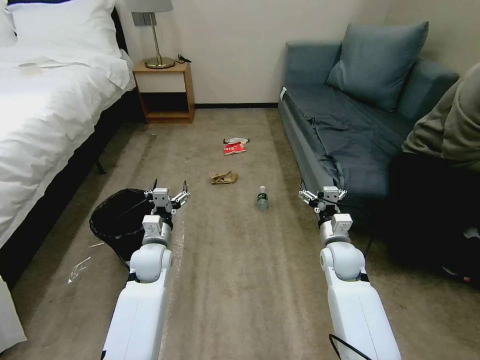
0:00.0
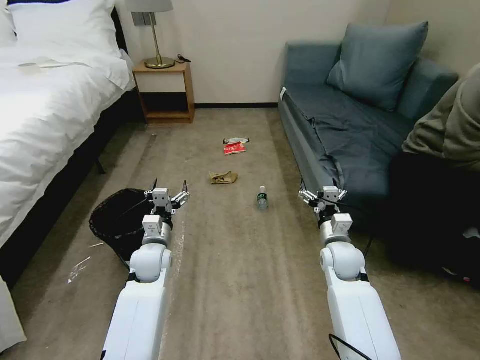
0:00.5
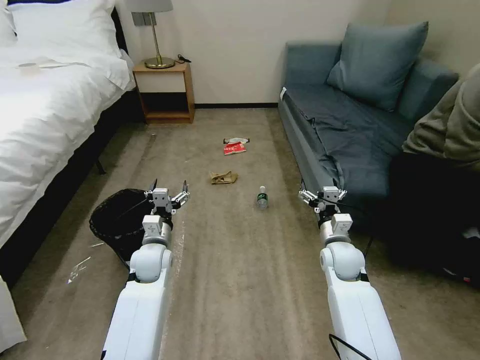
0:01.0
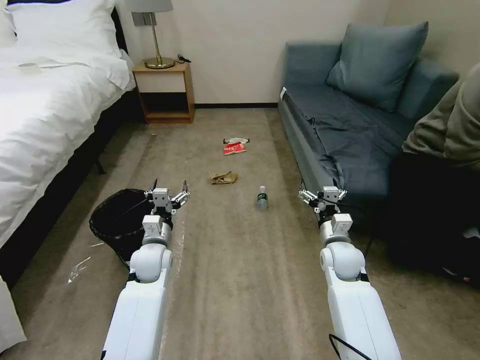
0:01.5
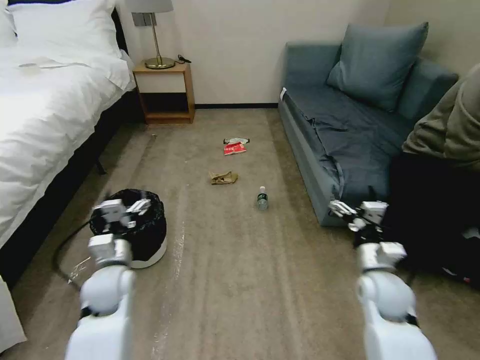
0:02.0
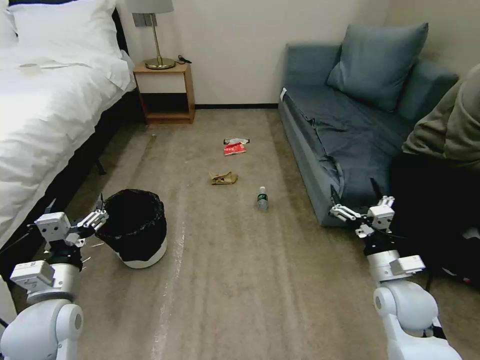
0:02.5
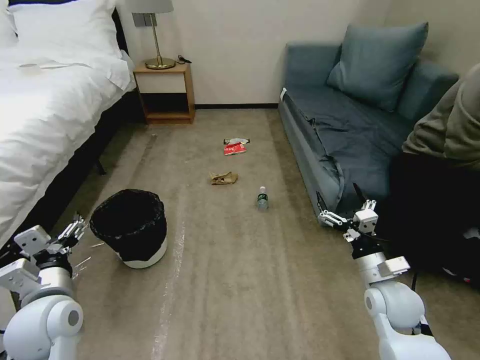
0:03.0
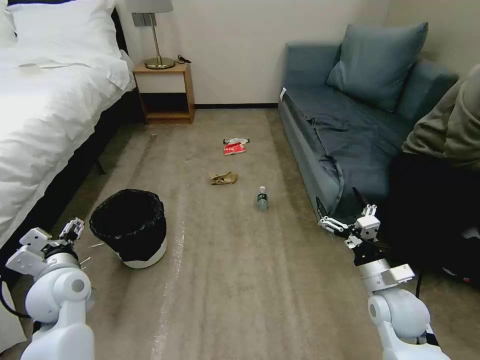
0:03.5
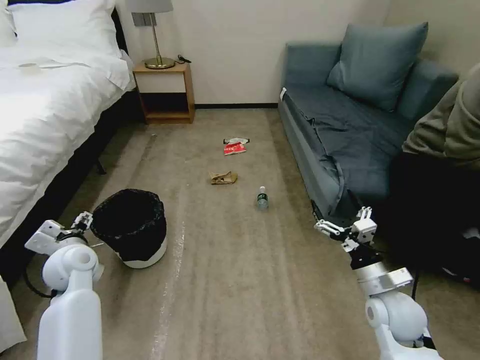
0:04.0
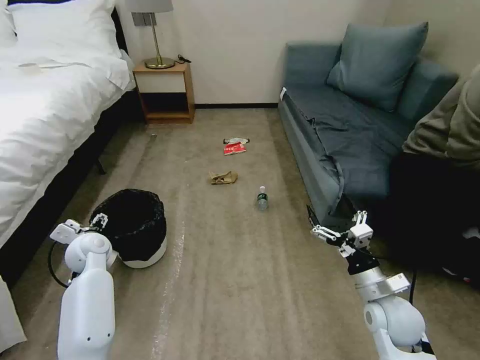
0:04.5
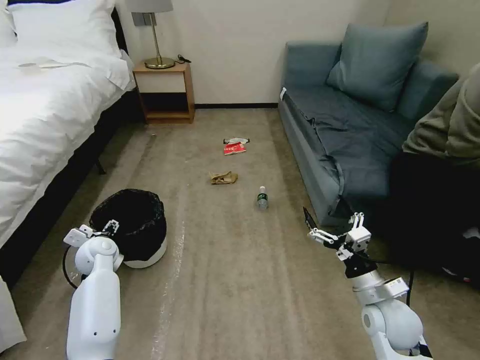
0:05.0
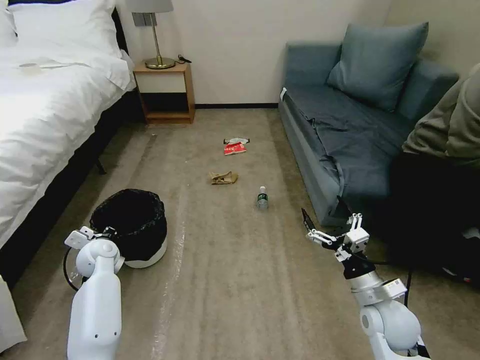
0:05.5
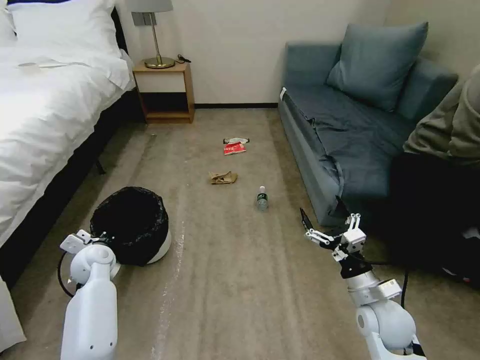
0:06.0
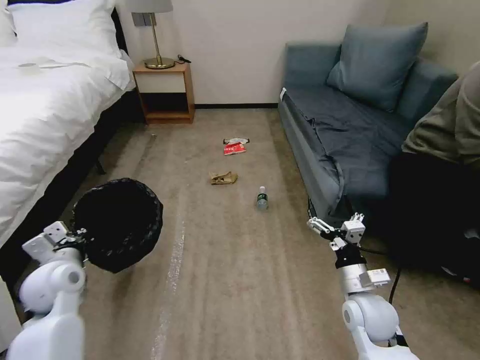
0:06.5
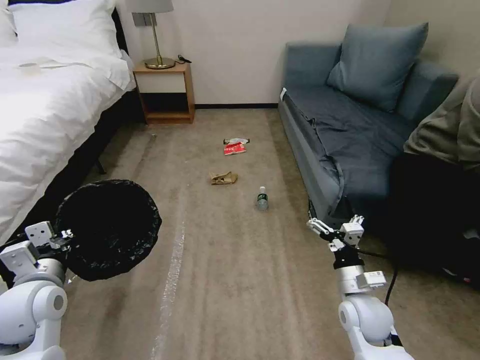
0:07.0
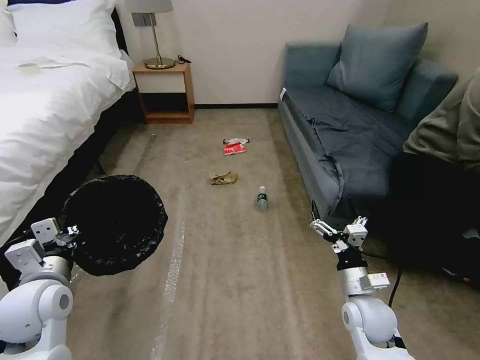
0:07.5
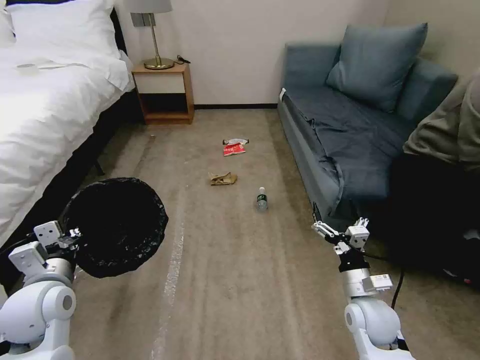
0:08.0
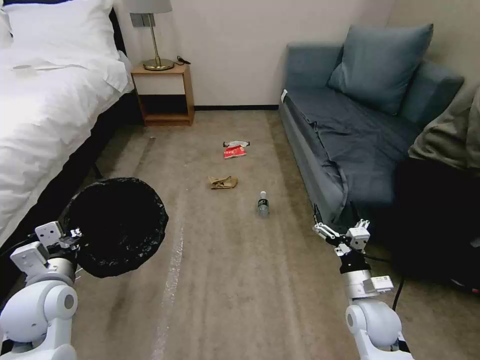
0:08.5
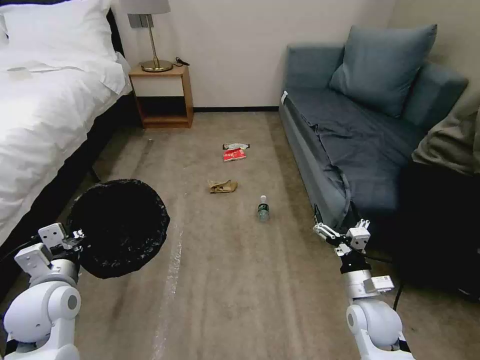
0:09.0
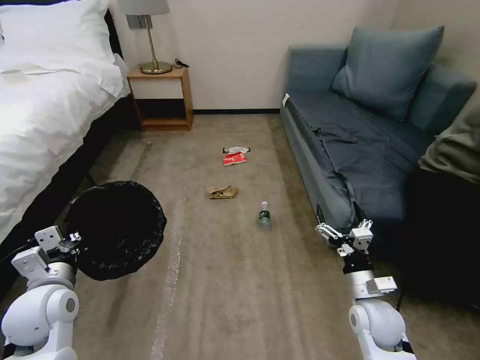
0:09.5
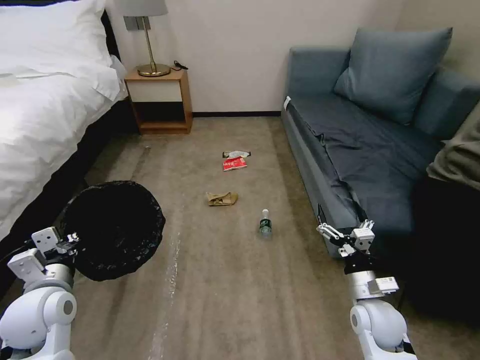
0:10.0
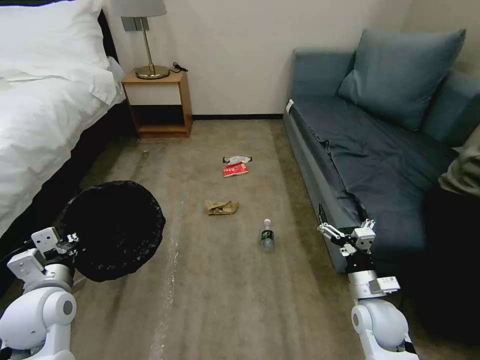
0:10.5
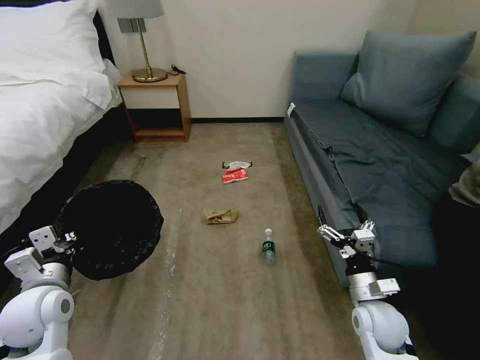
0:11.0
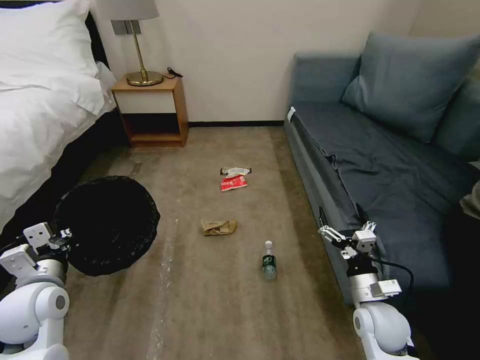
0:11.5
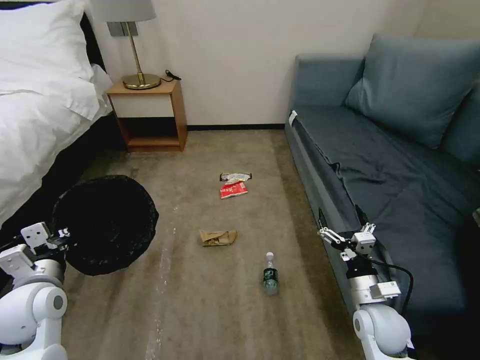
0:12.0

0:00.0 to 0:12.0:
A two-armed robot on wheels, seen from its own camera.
Task of the whole recording: Pick up the trash bin, then pick up the garbage on the floor and place it into the trash bin.
0:02.0 to 0:04.0: The left gripper is displaced to the left by some 10 cm, and reaches about 10 cm backward, then returns.
0:04.0 to 0:06.0: The left gripper heads downward, covering some 5 cm, and closes its fingers.
0:06.0 to 0:08.0: The left gripper is displaced backward and upward by some 20 cm.

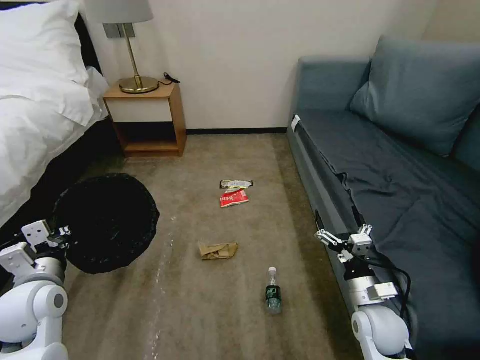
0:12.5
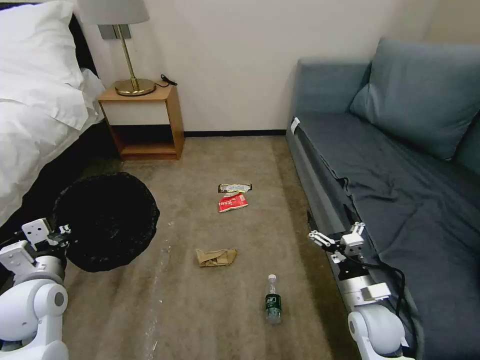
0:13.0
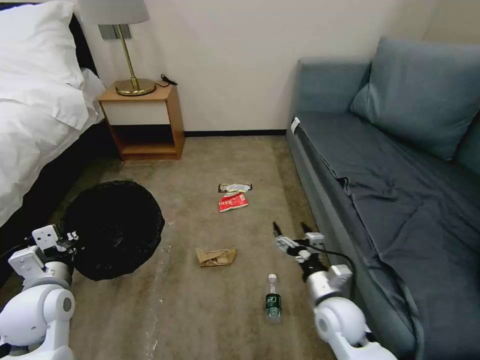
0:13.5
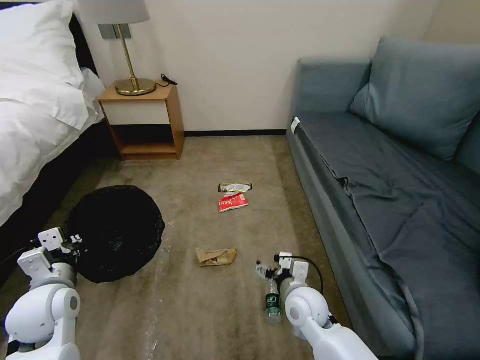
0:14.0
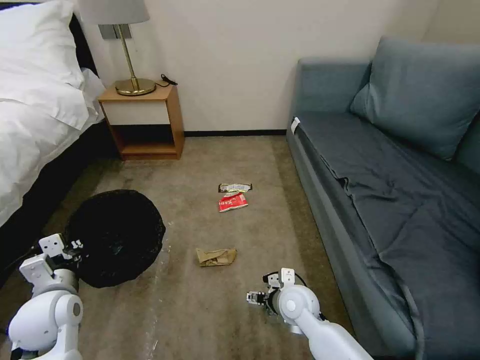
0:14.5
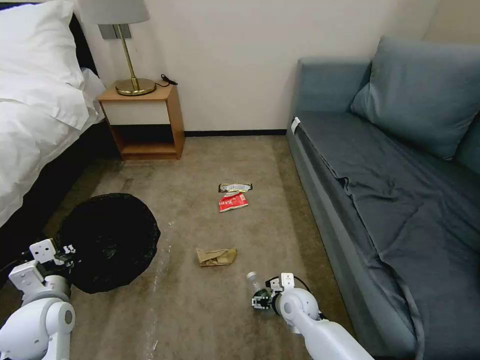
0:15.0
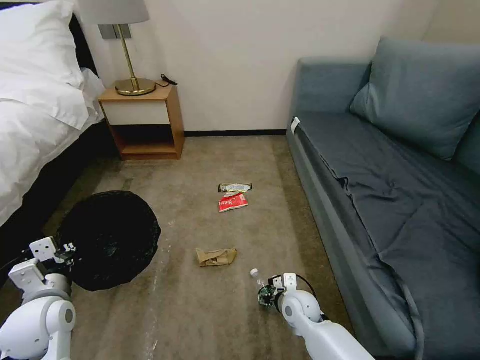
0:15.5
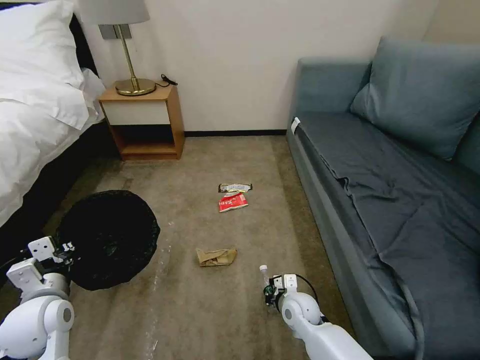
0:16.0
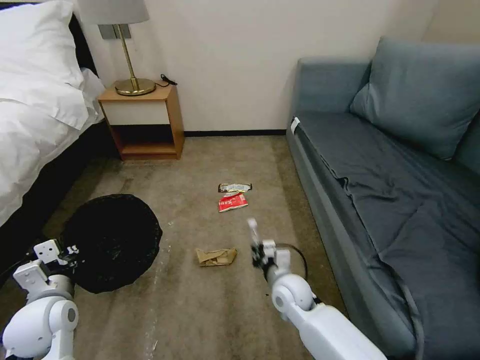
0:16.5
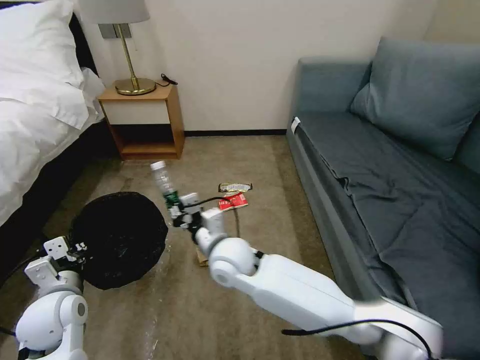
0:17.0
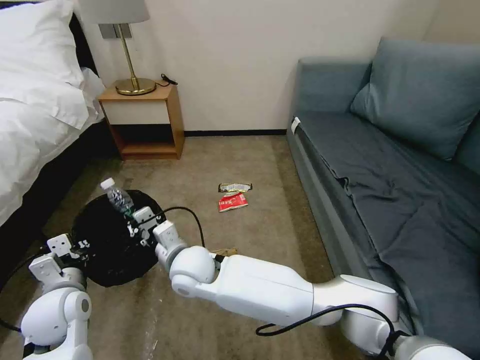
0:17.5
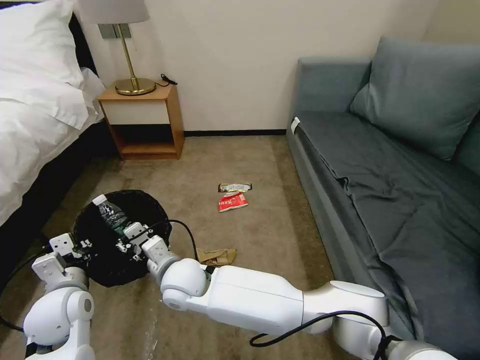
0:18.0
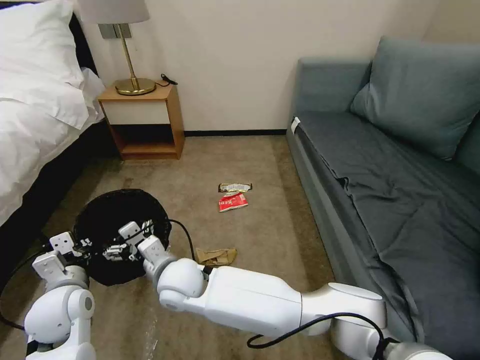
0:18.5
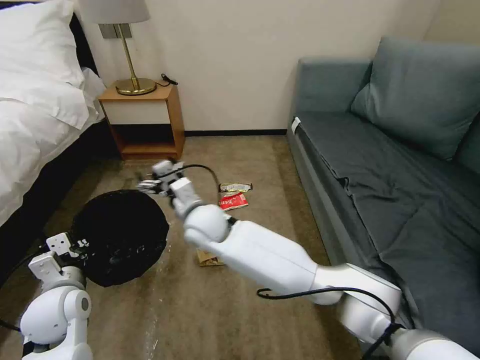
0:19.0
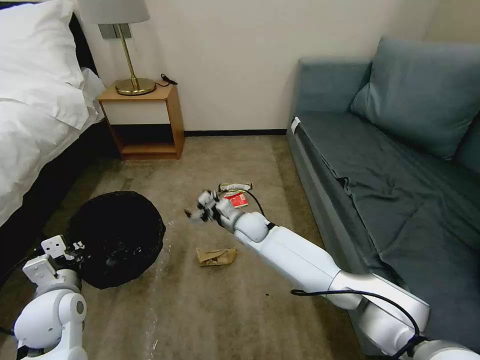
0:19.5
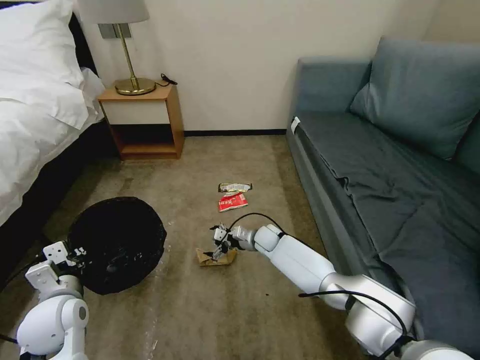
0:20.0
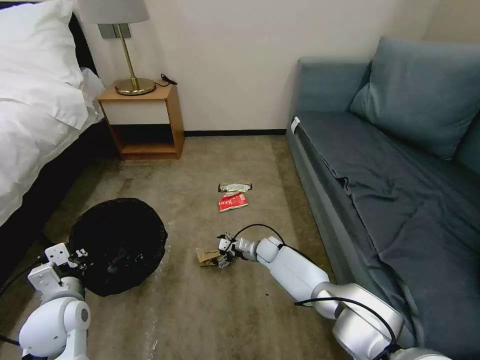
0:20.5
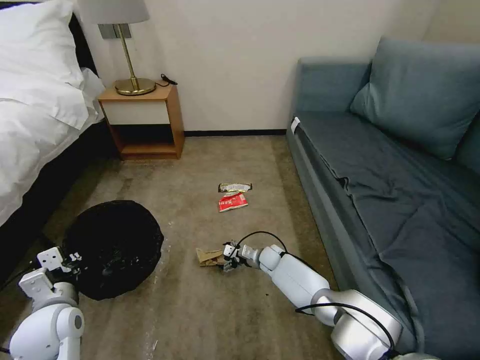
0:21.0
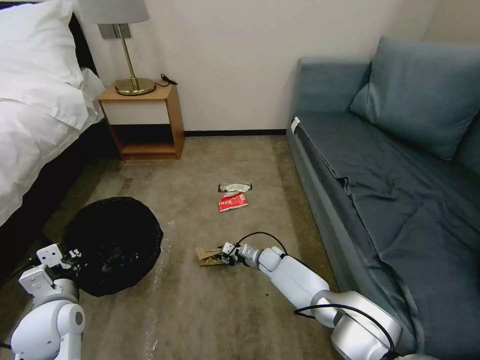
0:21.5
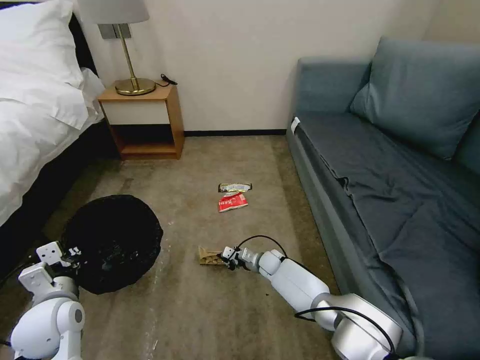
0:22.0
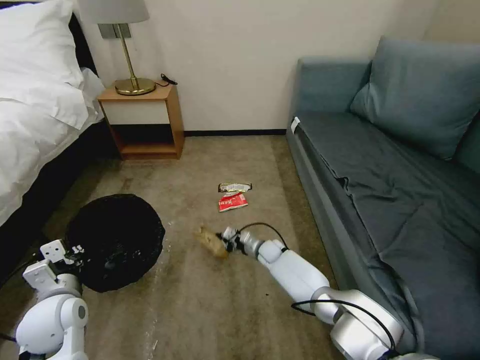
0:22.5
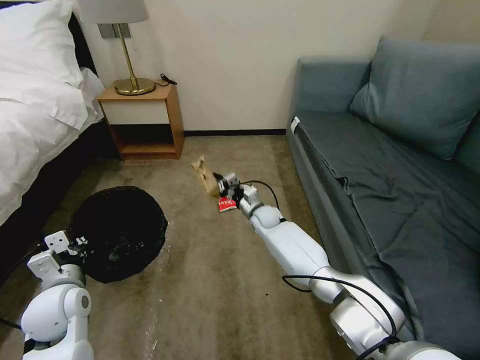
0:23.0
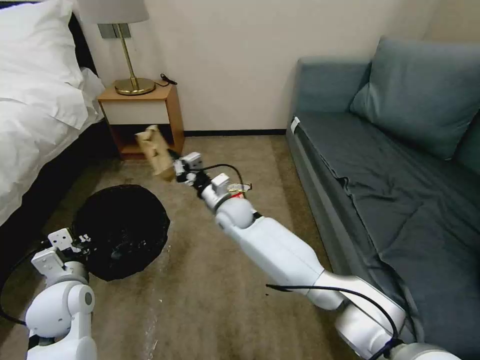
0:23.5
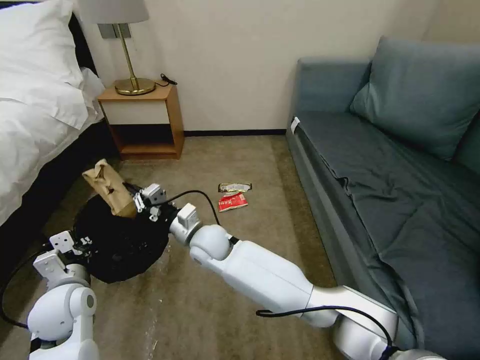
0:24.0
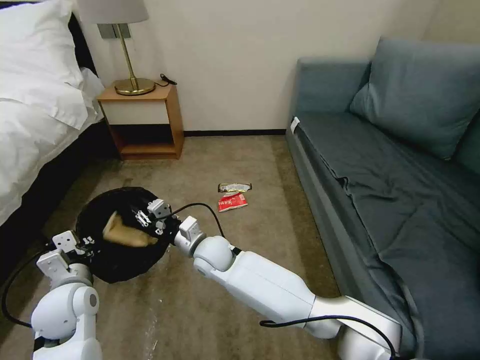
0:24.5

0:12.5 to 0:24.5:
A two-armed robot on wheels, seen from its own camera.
Task of the whole recording: Pick up the trash bin, then pick up the garbage on the floor and place it into the trash bin.
0:12.5 to 0:14.5: The right gripper travels to the left by roughly 15 cm.
0:14.5 to 0:16.5: The right gripper goes downward and returns, approximately 10 cm each way, and closes.
0:16.5 to 0:18.5: The right gripper goes roughly 25 cm to the left, and opens.
0:18.5 to 0:20.5: The right gripper moves to the right, downward and forward, approximately 35 cm.
0:20.5 to 0:22.5: The right gripper closes.
0:22.5 to 0:24.5: The right gripper heads to the left, upward and backward, covering approximately 30 cm.

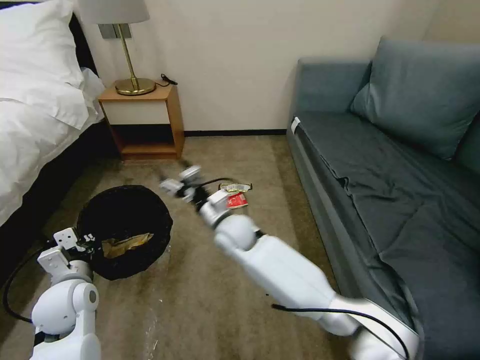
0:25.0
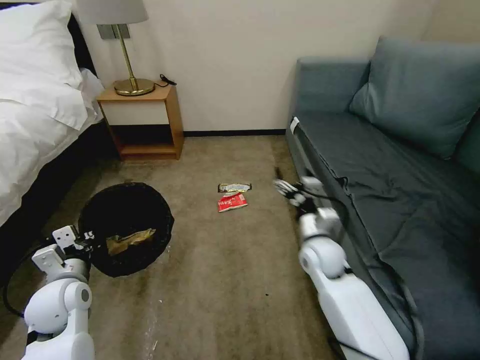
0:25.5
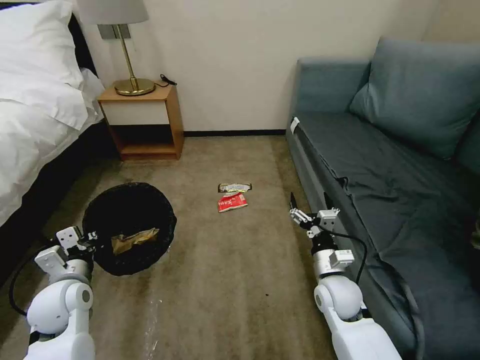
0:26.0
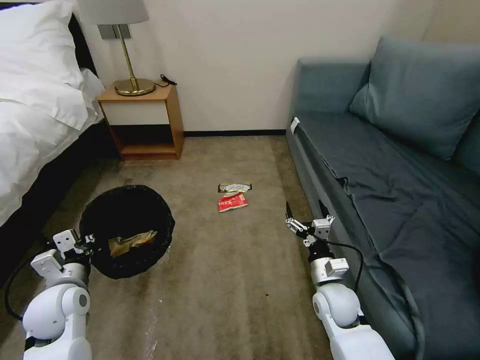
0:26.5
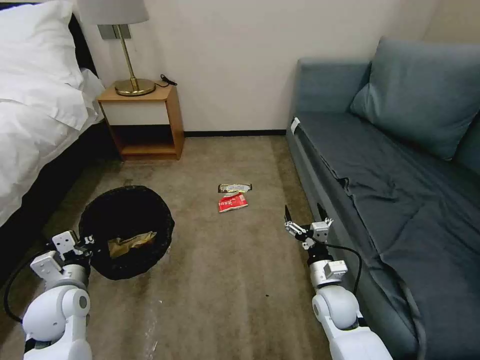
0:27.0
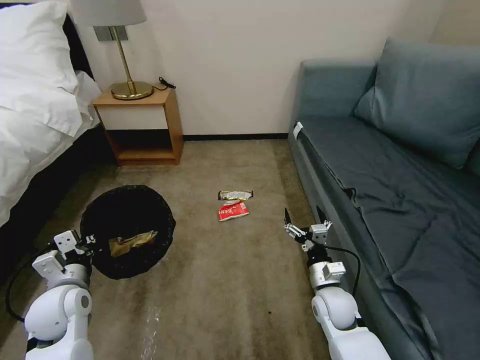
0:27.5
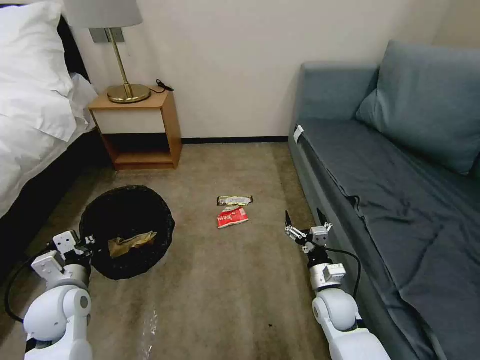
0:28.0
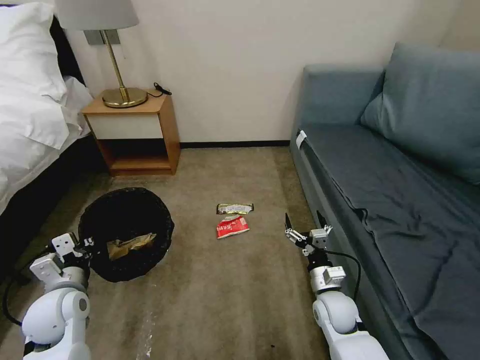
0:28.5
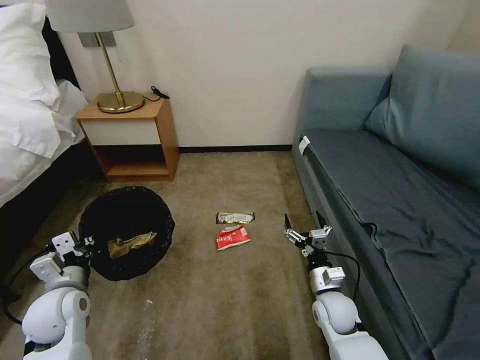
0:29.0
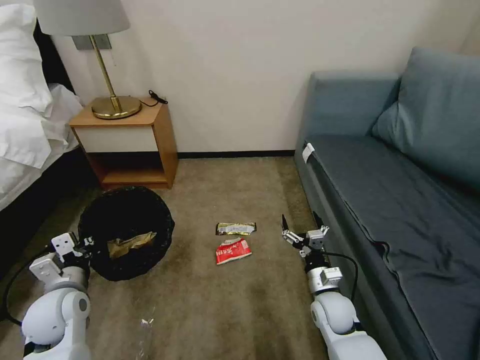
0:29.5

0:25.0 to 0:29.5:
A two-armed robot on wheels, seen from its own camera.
Task of the whole recording: Pick up the trash bin, then pick up the garbage on the floor and place it into the trash bin.
0:25.0 to 0:27.0: The right gripper moves to the right, backward and downward, about 30 cm.
